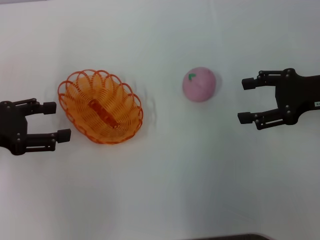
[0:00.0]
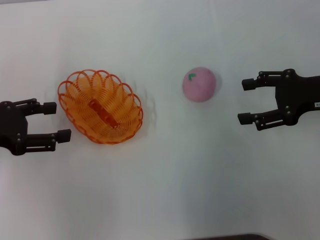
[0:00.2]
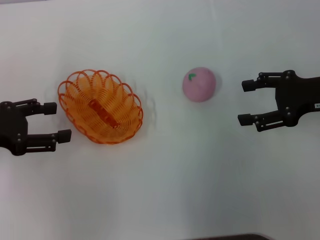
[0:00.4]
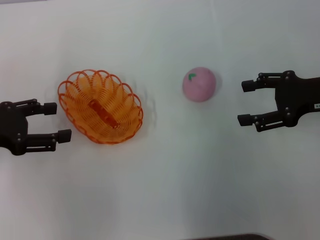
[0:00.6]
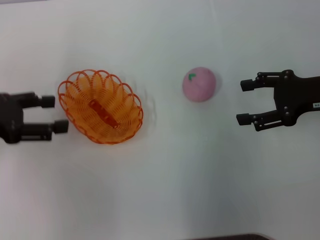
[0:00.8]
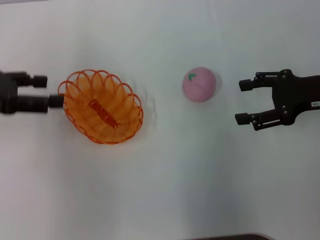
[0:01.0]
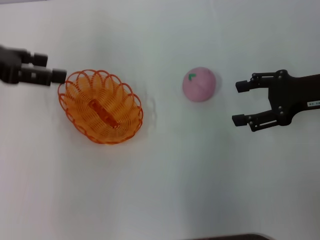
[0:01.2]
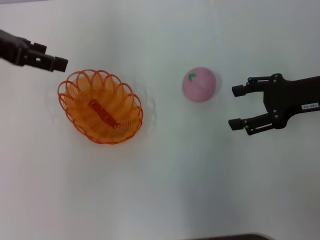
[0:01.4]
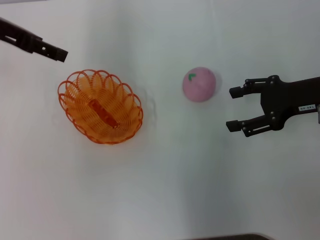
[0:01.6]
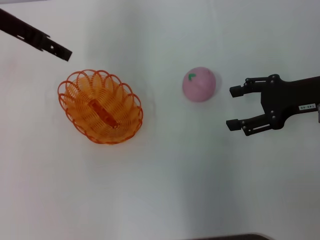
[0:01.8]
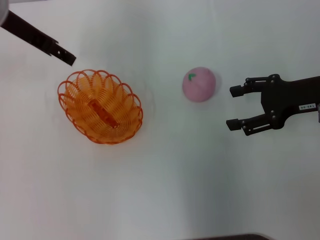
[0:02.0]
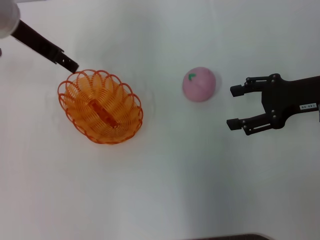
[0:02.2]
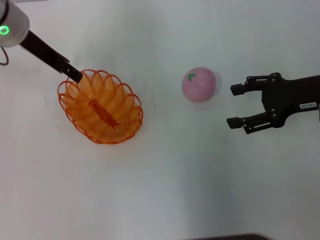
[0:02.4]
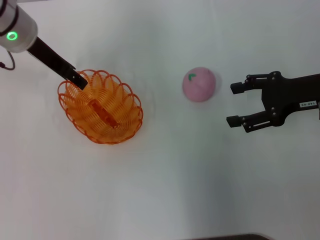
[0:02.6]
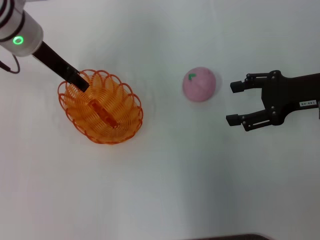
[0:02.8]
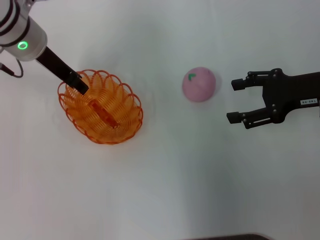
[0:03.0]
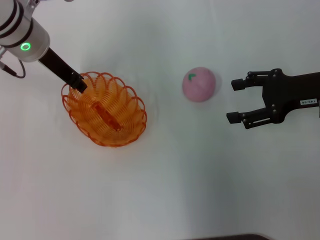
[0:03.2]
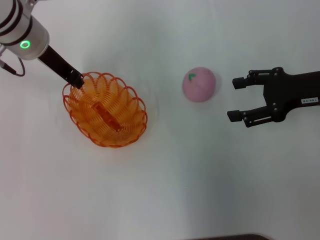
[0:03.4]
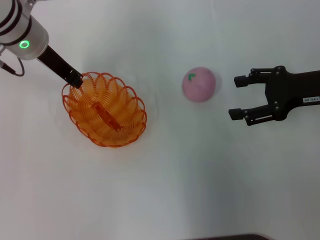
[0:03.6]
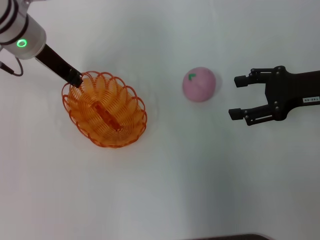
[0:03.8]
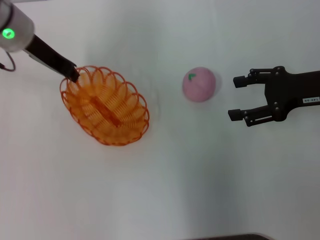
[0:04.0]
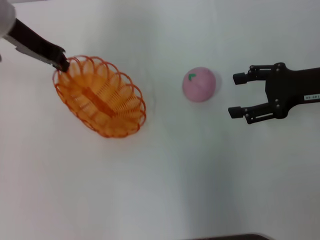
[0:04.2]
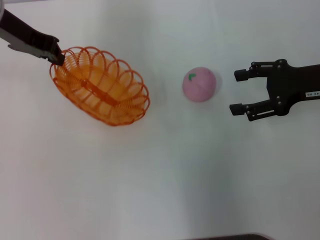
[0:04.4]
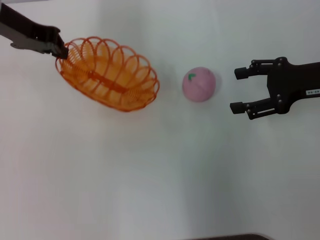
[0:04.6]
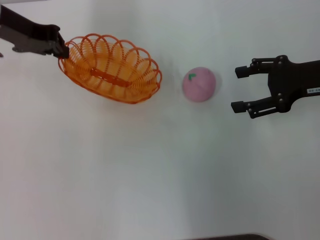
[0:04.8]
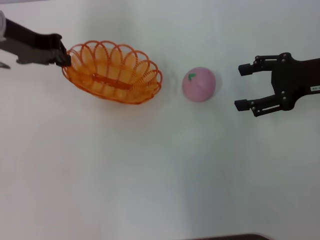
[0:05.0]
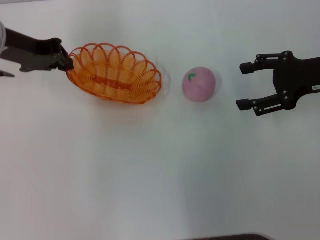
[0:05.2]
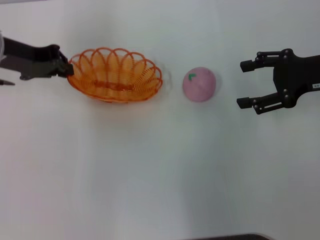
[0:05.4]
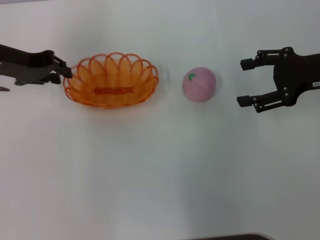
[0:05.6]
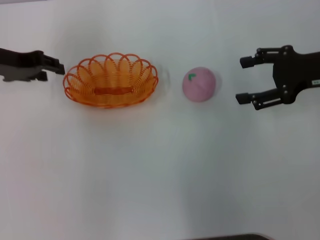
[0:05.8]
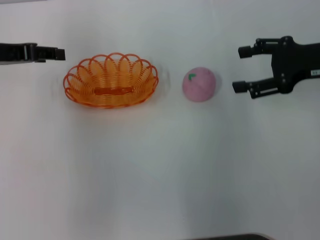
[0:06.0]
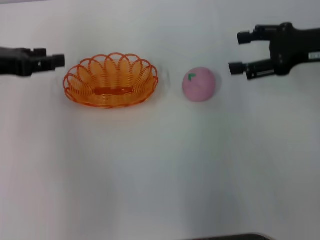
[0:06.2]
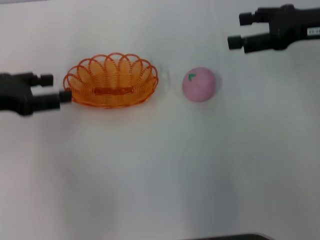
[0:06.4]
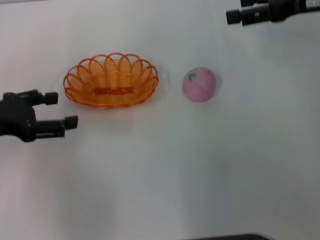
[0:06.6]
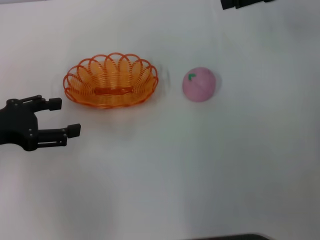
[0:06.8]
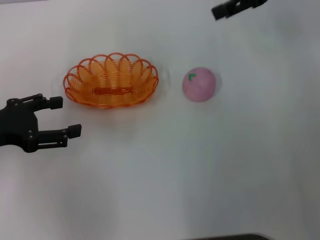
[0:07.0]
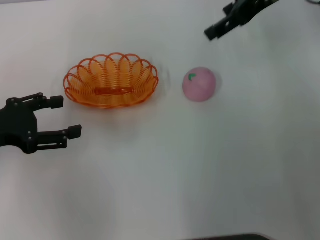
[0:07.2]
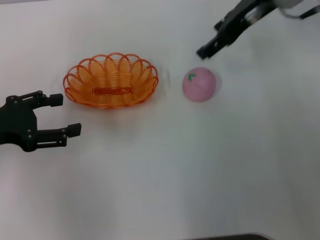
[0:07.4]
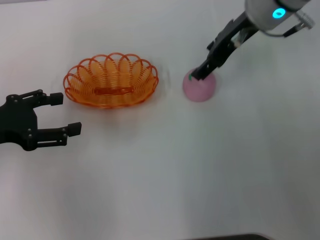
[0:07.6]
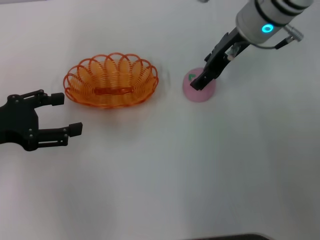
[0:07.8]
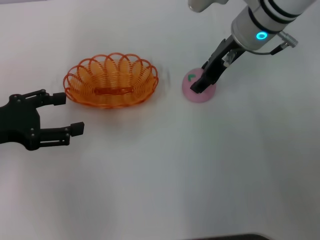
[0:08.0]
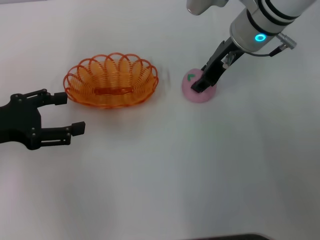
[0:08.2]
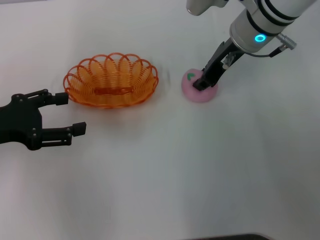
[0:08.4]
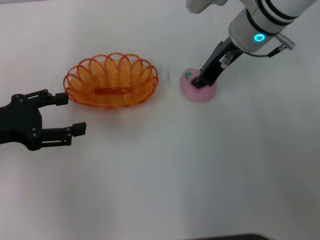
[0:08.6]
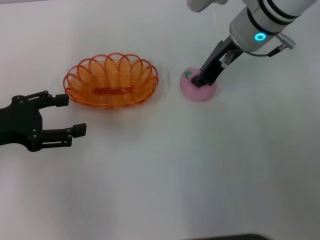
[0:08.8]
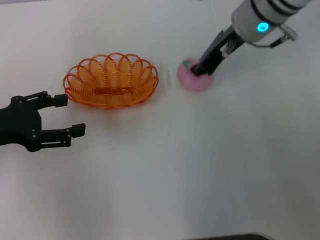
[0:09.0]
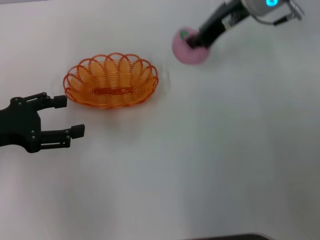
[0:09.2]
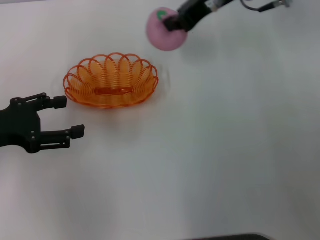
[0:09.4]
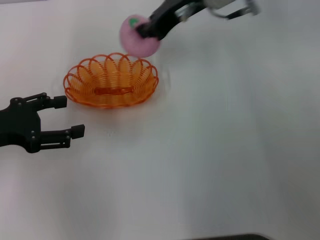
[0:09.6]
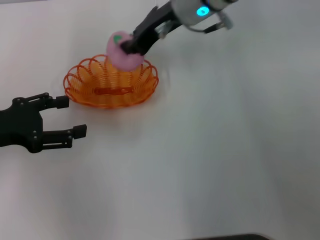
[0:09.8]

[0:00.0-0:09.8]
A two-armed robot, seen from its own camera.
Step, 0:00.0 to 0:04.4: Pick up the basket with the left gripper.
Step, 0:04.6 to 0:06.2: Place the basket in the center of view with the left gripper.
Step, 0:06.4 to 0:09.4: Pick up the peach with the right gripper.
0:00.0 to 0:01.4: The left gripper goes approximately 15 cm upward and forward.
0:01.4 to 0:02.8: The left gripper shifts roughly 15 cm to the right, downward and forward.
0:02.8 to 0:04.2: The left gripper closes.
0:04.2 to 0:05.6: The left gripper shifts by approximately 5 cm.
0:05.6 to 0:07.0: The left gripper travels backward by about 10 cm, and opens; the right gripper is displaced upward, forward and to the left by about 15 cm.
0:07.0 to 0:08.4: The right gripper travels to the left and downward by about 15 cm, and closes up.
0:08.4 to 0:09.8: The right gripper travels to the left by approximately 5 cm, and closes its fingers.

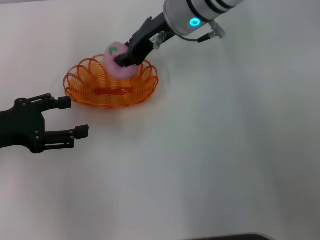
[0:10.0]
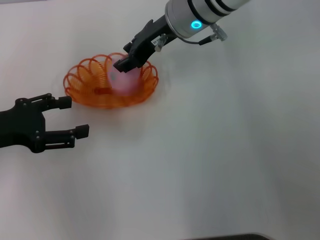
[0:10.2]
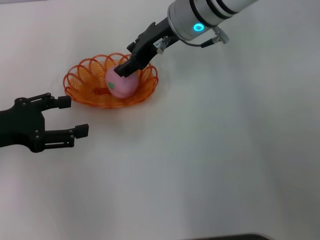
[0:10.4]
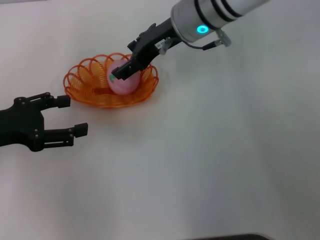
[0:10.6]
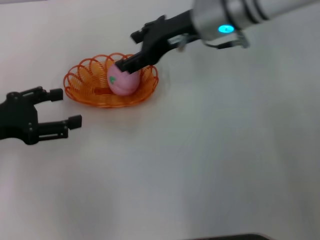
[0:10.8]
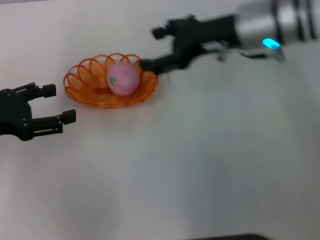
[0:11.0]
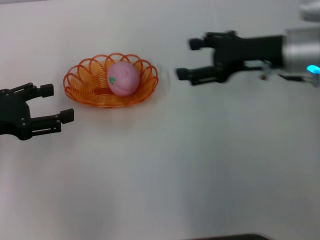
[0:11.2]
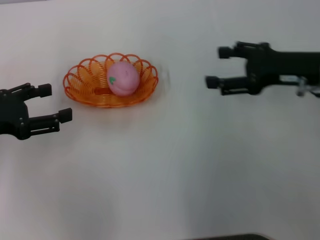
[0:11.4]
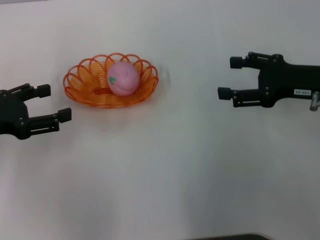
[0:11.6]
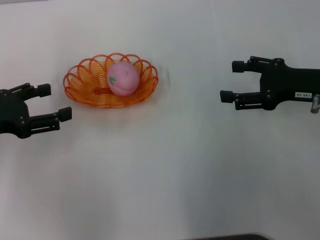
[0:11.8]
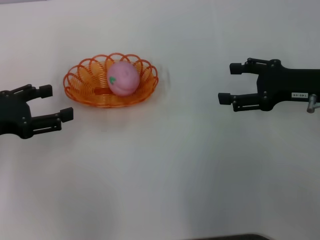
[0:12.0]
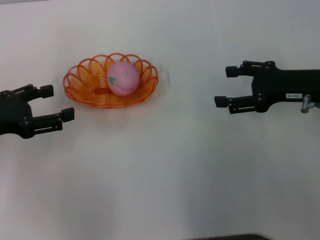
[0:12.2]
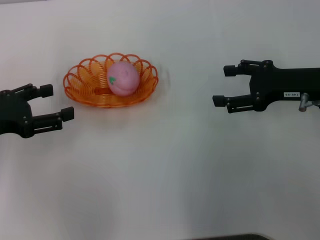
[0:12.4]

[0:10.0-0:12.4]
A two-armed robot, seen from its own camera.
Step, 0:10.0 to 0:11.4: Place the peach into the basket with the right gripper.
0:10.0 to 0:11.2: The right gripper shifts some 20 cm to the right and backward, and opens up.
0:11.2 to 0:12.4: The right gripper is displaced to the right by approximately 5 cm.
